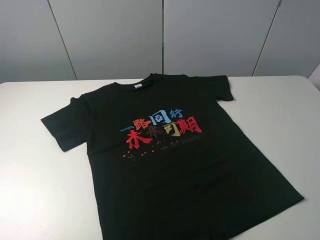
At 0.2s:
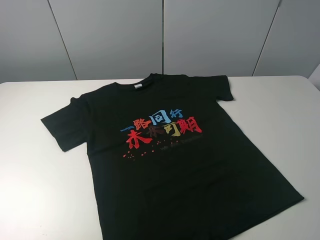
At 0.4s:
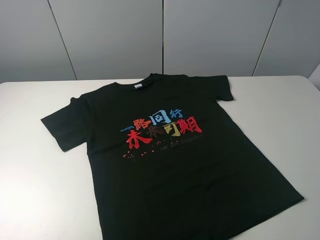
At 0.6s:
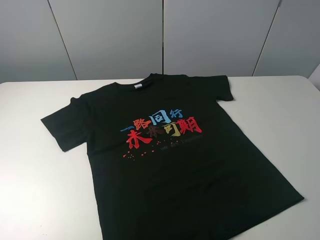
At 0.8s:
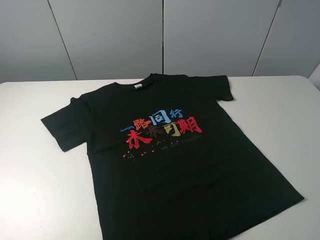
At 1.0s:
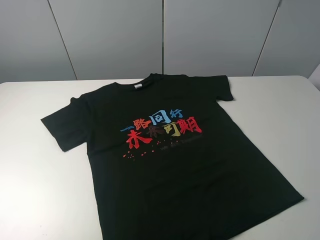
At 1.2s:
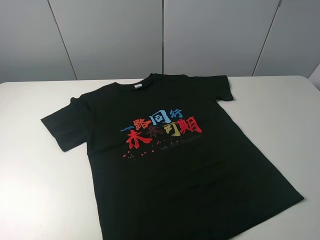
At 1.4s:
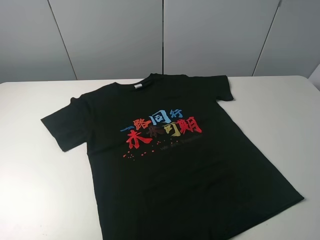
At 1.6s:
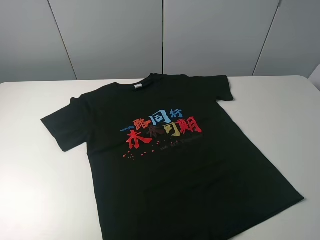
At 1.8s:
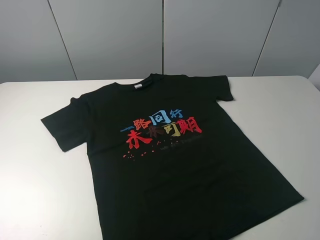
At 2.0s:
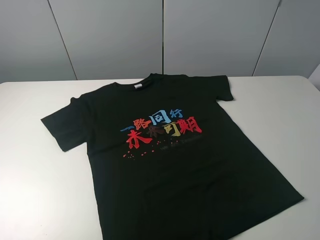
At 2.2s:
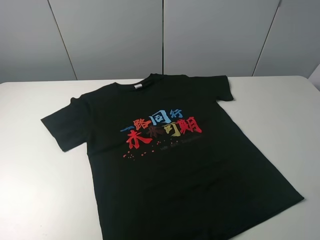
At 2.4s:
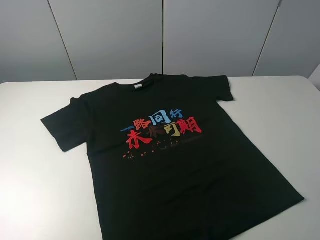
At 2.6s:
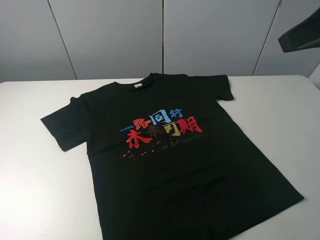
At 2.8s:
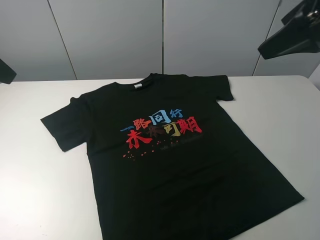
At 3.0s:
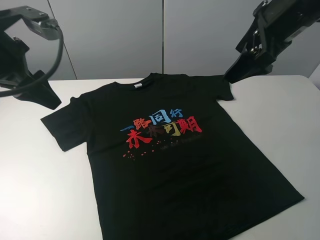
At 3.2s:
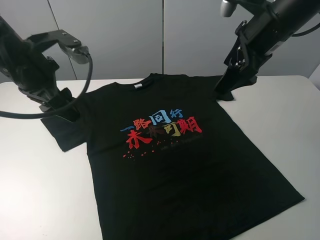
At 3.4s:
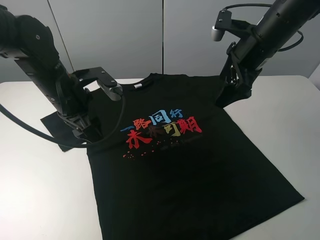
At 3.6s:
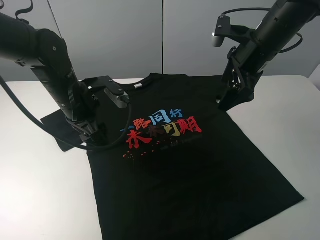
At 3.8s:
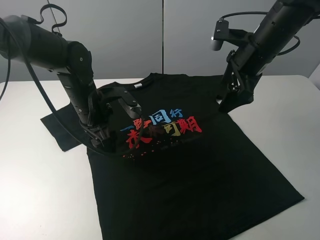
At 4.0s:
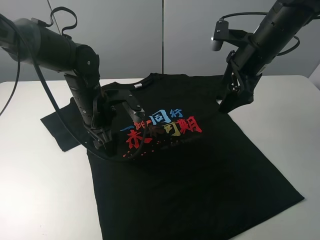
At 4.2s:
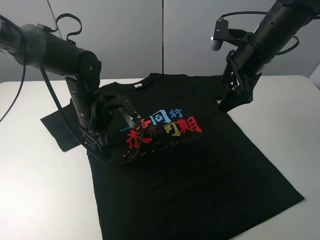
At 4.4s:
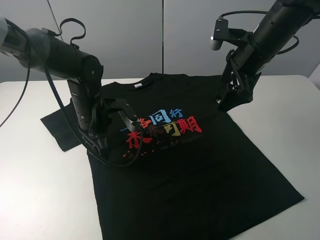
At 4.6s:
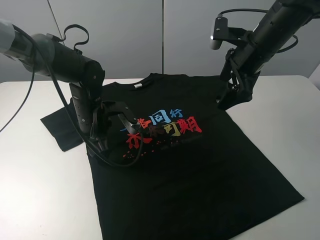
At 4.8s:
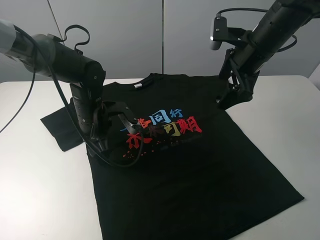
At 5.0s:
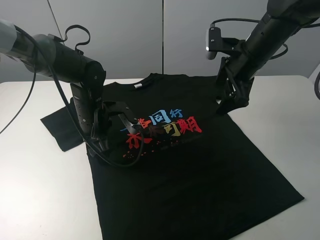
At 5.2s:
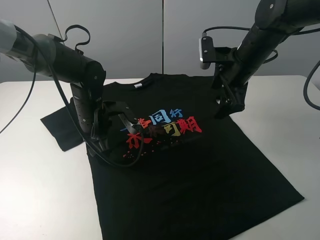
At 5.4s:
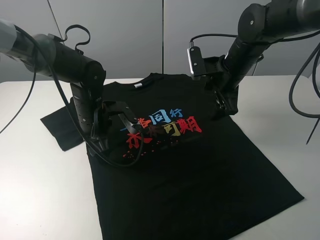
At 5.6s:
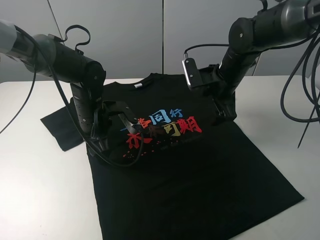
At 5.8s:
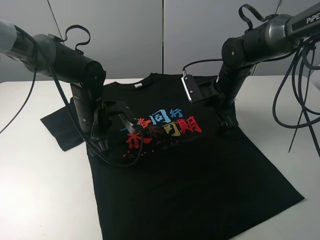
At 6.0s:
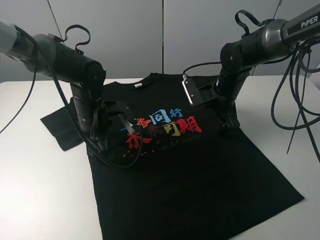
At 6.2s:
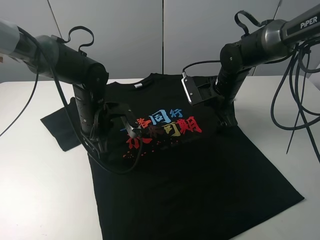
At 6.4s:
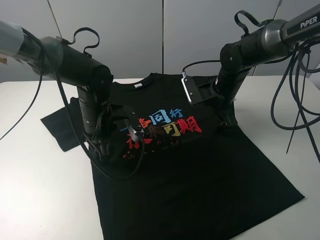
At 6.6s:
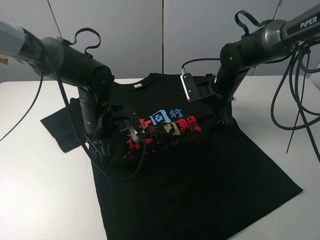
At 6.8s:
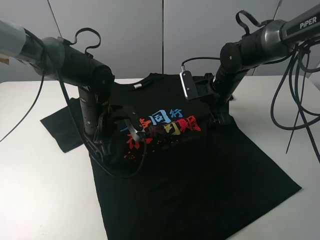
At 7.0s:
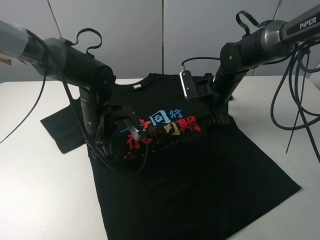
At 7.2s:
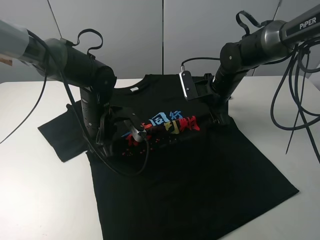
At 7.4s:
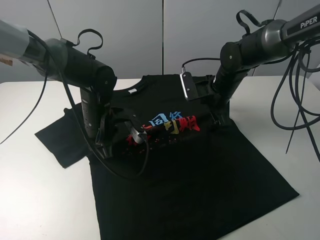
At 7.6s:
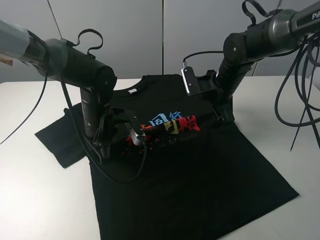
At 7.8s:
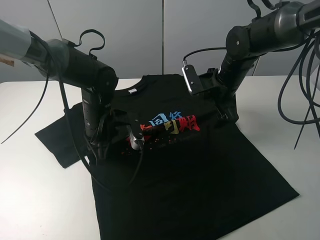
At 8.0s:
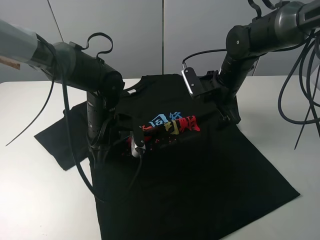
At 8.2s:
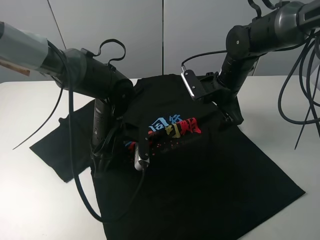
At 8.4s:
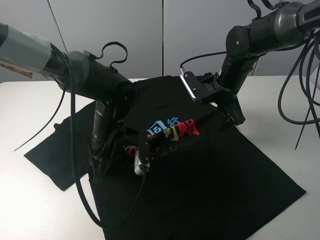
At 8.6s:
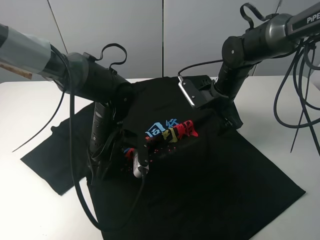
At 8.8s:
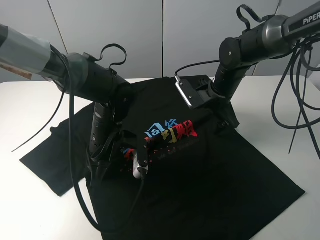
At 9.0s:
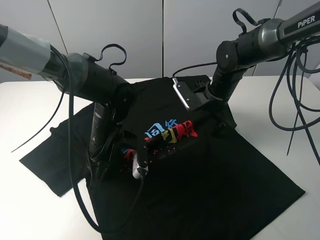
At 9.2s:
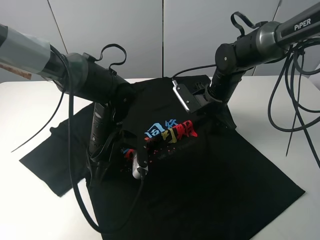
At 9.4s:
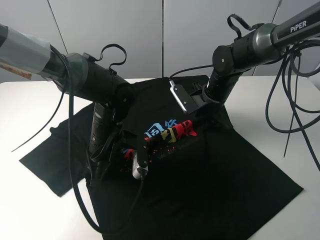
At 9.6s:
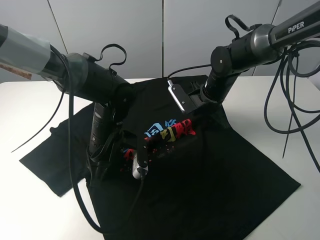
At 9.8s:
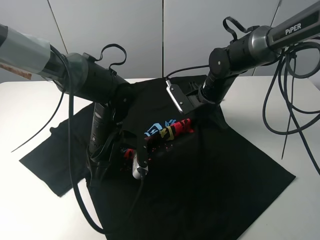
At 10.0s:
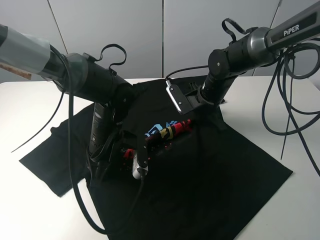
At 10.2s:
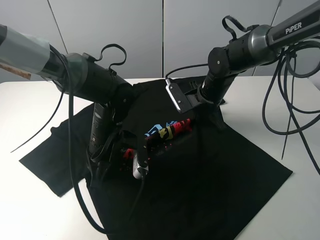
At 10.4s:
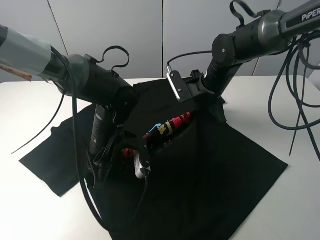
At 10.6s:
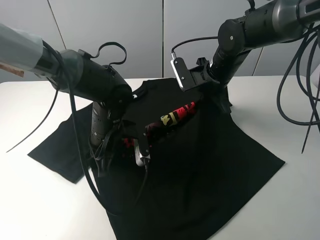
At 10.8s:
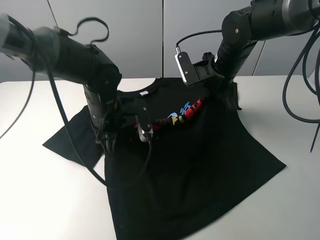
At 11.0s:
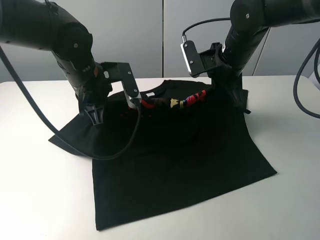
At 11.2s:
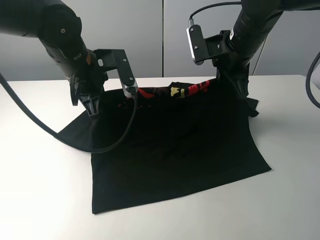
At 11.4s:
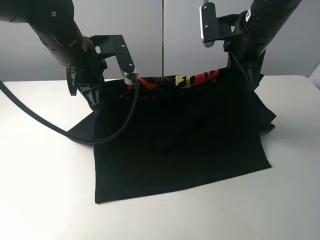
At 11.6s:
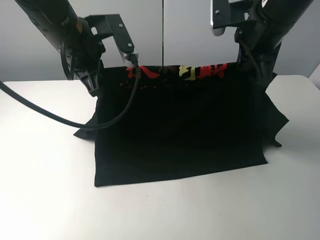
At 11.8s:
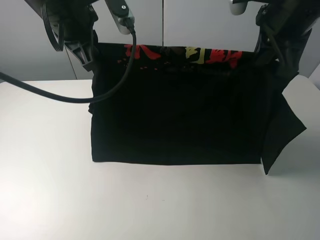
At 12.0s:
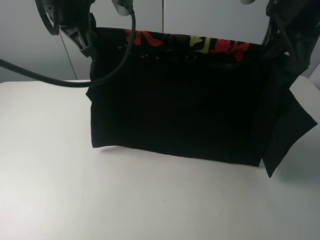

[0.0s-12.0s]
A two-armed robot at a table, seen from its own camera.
Task of the whole recording: fold the clothes on the table.
Step, 0.0s to 7.0s: Lift the black T-shirt with the left gripper.
0.0s to 1.6s: The two grippers keep their place.
1.6s to 3.0s: Both grippers move forward, about 30 cm.
3.0s to 4.4s: The right gripper heads downward, covering approximately 10 cm, while the left gripper is displaced downward and to the right by some 20 cm.
4.4s to 6.0s: The right gripper goes roughly 10 cm downward.
6.0s to 7.6s: The left gripper closes up.
7.6s to 9.0s: The left gripper moves roughly 5 cm.
9.0s to 10.4s: The right gripper closes up.
10.4s to 12.0s: The left gripper travels upward by about 25 cm, while the right gripper heads upward and backward, covering roughly 25 cm.

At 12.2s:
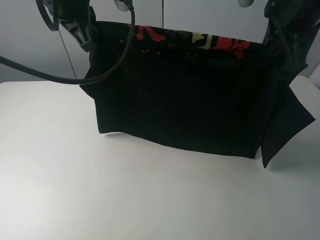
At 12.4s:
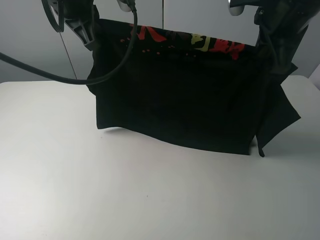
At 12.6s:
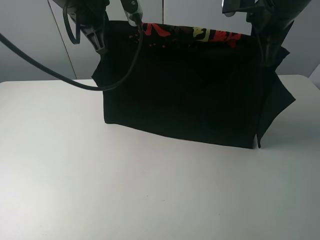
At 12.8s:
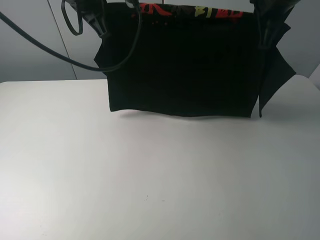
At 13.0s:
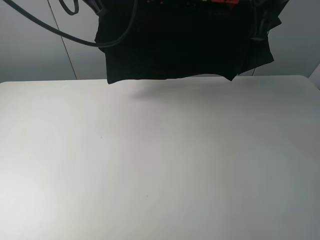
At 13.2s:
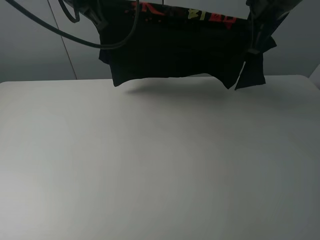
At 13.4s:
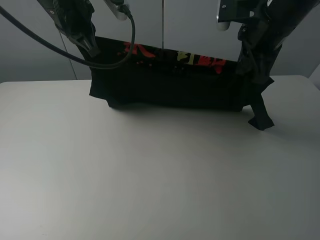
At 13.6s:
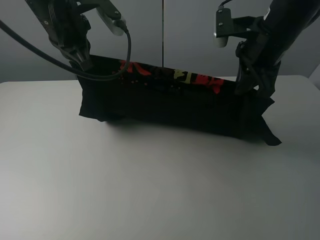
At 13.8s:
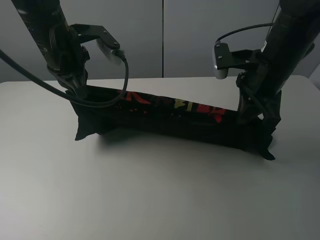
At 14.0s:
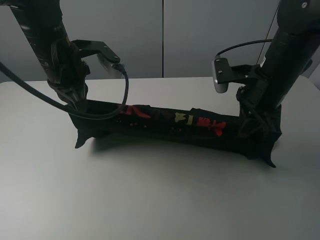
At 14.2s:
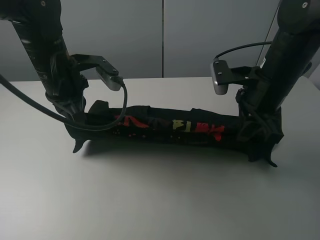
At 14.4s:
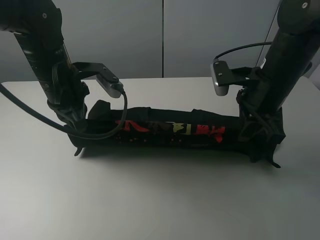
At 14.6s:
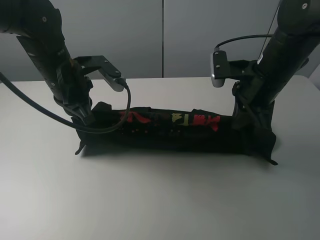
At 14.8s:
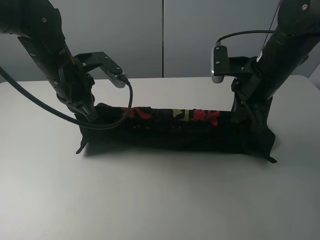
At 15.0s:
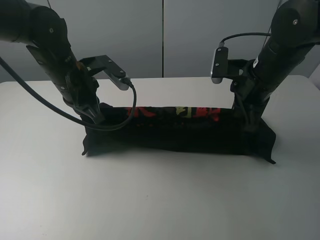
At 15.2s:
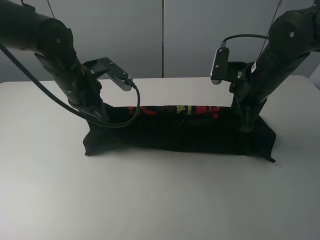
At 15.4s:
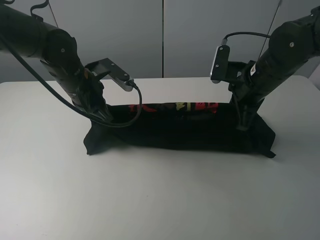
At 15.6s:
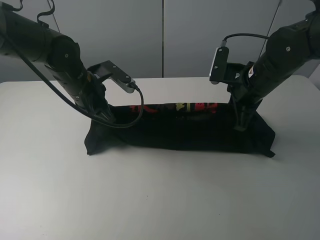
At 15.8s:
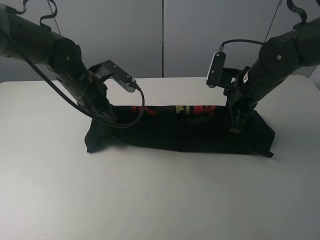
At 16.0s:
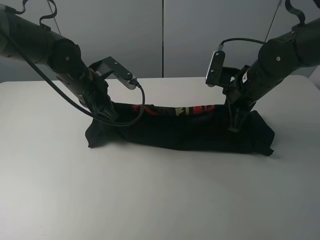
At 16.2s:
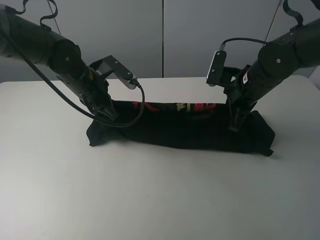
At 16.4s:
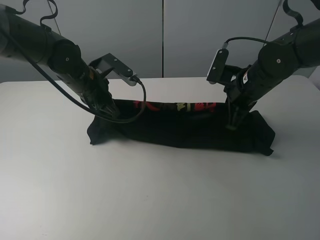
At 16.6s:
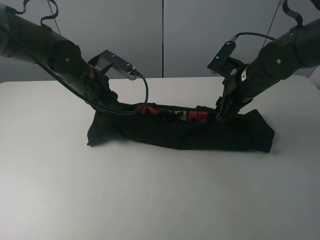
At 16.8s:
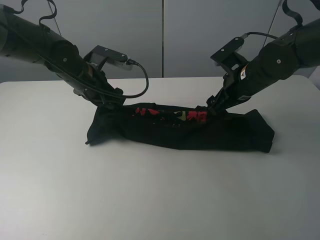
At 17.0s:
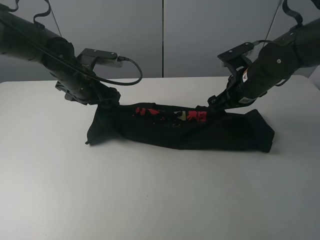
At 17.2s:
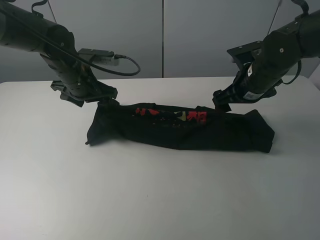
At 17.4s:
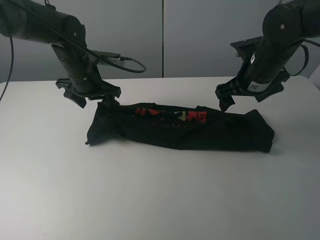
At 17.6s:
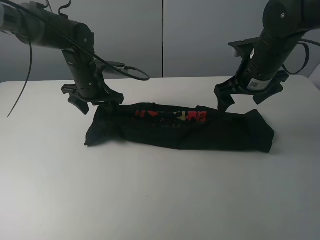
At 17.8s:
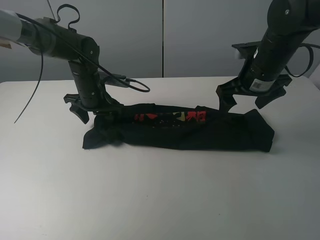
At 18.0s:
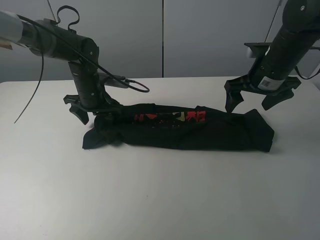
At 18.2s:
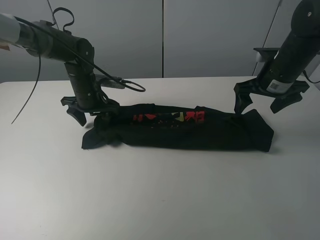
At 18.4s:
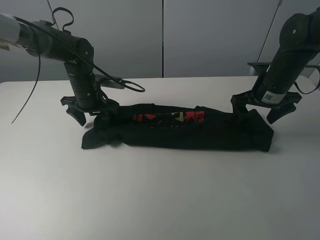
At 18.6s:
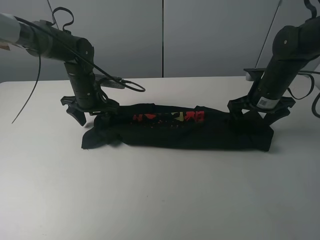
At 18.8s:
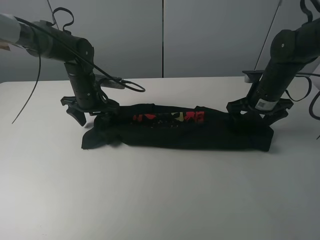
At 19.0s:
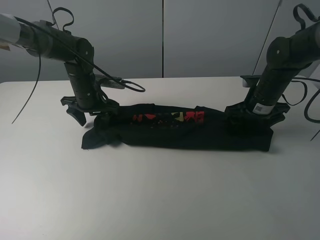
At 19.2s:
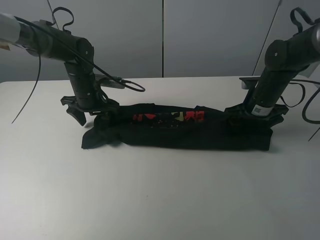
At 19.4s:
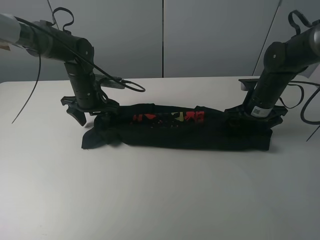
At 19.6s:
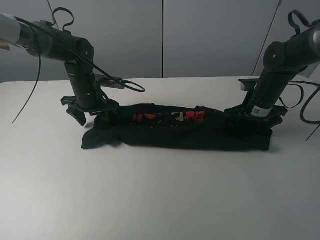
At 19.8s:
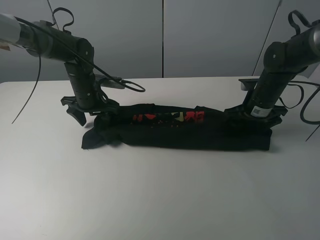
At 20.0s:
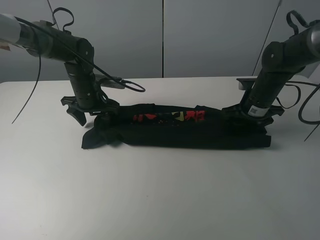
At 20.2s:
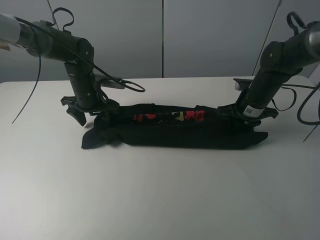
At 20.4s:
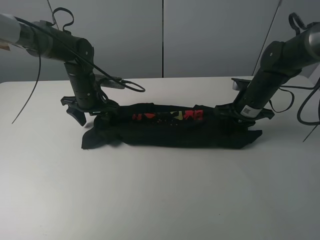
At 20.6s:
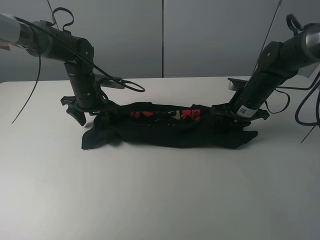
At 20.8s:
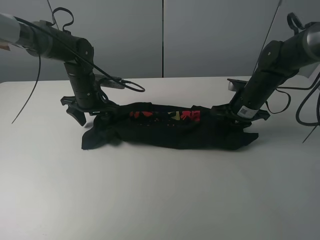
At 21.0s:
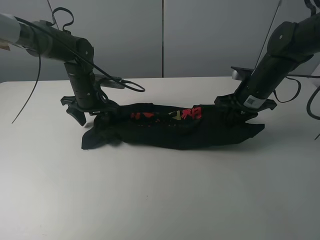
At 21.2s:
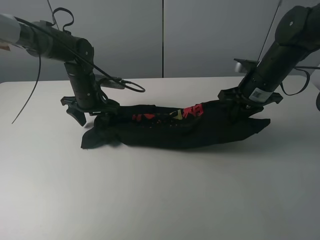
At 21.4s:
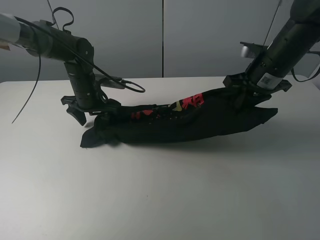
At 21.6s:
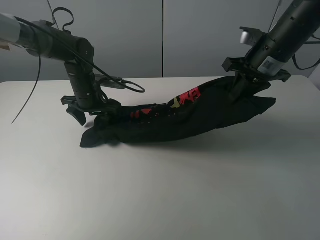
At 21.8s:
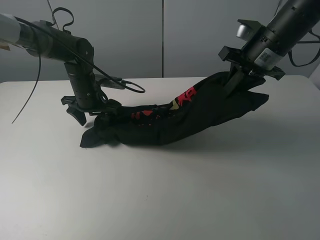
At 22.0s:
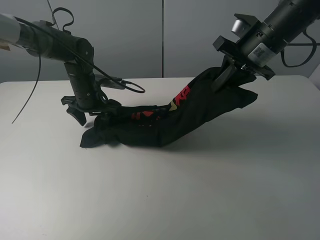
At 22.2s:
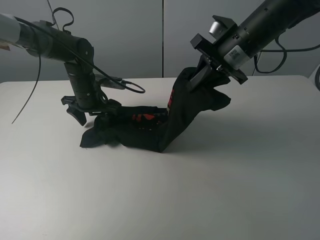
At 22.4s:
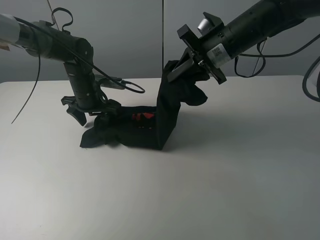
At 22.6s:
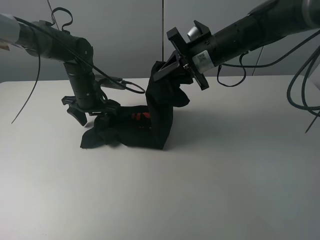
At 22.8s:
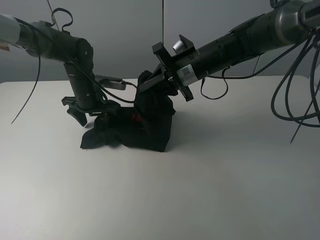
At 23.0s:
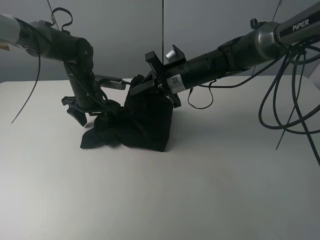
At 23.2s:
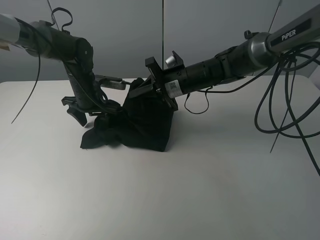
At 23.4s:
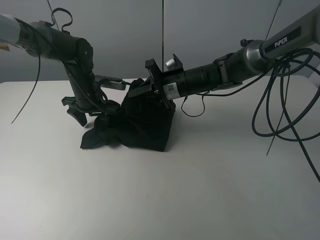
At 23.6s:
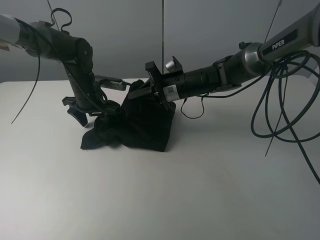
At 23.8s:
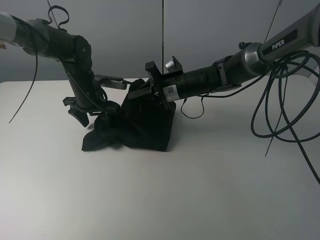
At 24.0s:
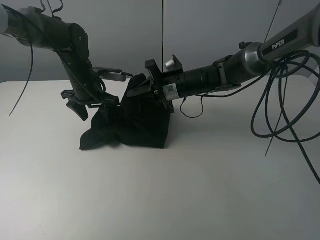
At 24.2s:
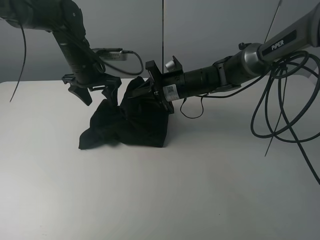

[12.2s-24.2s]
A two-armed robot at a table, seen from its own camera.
Task of the whole recording: fold the clothes on the table.
Step, 12.2s to 16.8s: Fold the black T-shirt downward with the left gripper.
Step, 17.0s to 20.2s: Grasp the black T-shirt with the right gripper.
12.2s to 13.8s: Both grippers travel together downward, about 10 cm.
13.8s to 15.2s: The left gripper goes approximately 10 cm downward.
15.2s to 16.6s: The left gripper opens. The right gripper opens.
16.6s to 18.2s: The right gripper goes some 5 cm to the right. Meanwhile the left gripper is displaced downward by about 5 cm, and opens its fingers.
18.2s to 19.8s: The right gripper travels downward by about 10 cm.
19.8s to 21.2s: The right gripper travels upward by some 5 cm, and closes its fingers.
21.2s to 22.6s: The right gripper travels to the left by some 10 cm.
22.6s to 24.2s: The left gripper is displaced upward by about 10 cm; the right gripper travels downward by roughly 10 cm.
